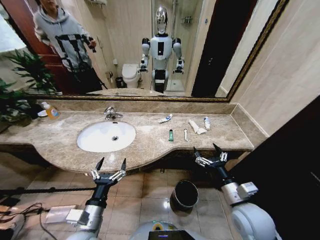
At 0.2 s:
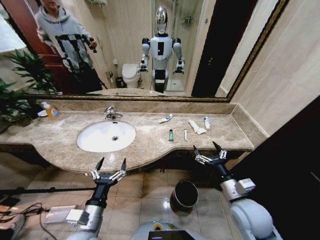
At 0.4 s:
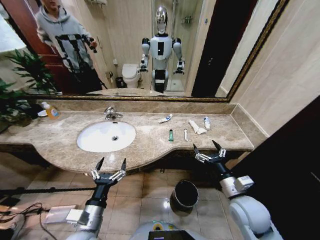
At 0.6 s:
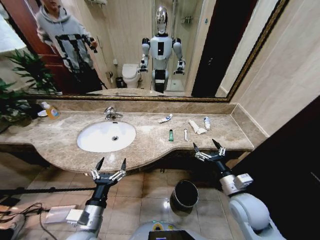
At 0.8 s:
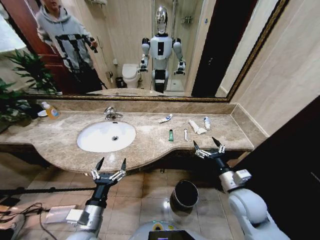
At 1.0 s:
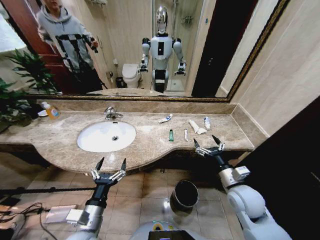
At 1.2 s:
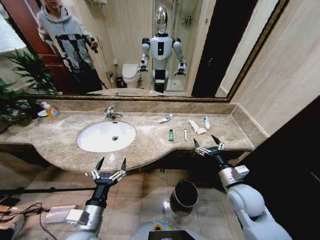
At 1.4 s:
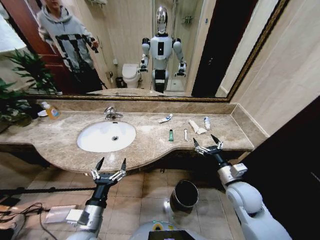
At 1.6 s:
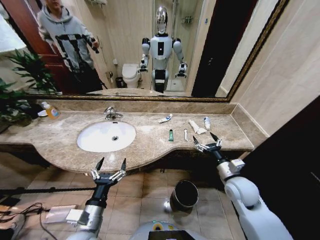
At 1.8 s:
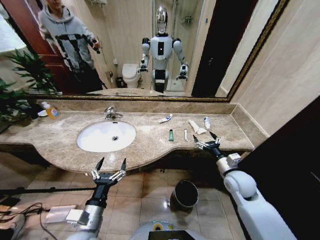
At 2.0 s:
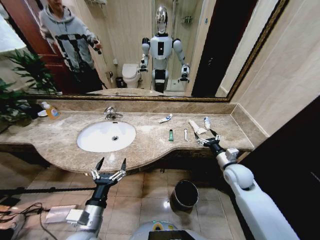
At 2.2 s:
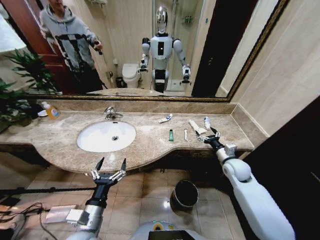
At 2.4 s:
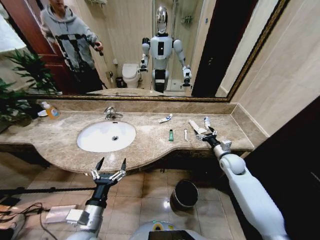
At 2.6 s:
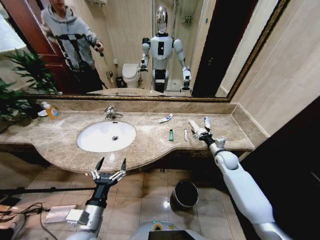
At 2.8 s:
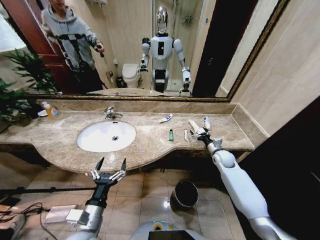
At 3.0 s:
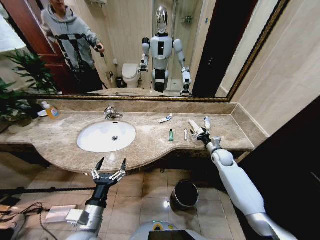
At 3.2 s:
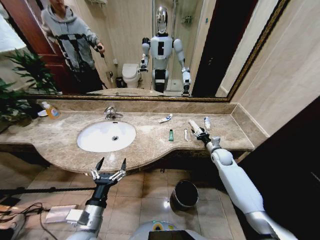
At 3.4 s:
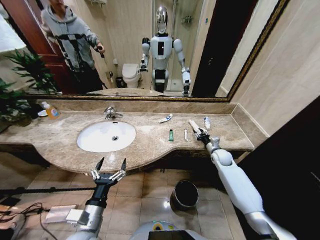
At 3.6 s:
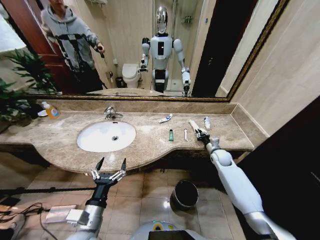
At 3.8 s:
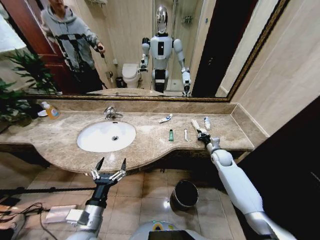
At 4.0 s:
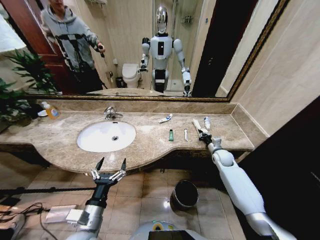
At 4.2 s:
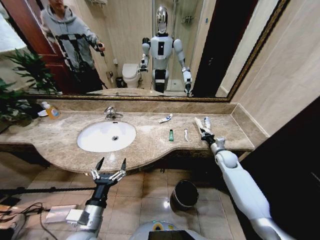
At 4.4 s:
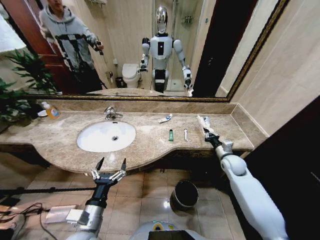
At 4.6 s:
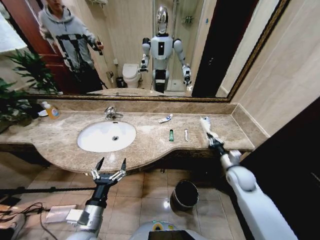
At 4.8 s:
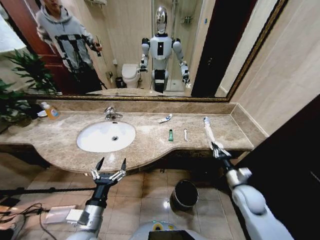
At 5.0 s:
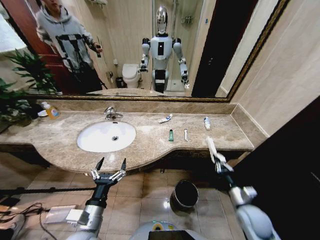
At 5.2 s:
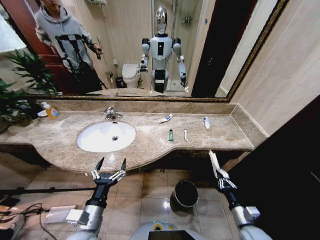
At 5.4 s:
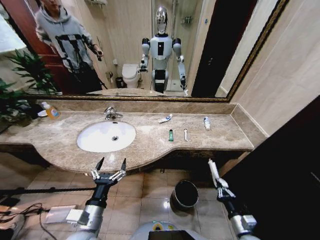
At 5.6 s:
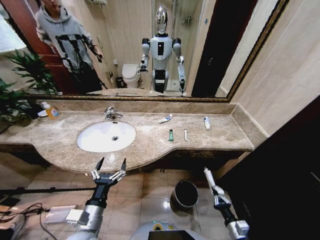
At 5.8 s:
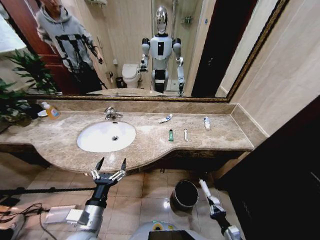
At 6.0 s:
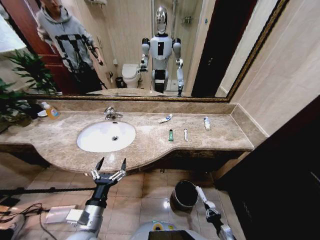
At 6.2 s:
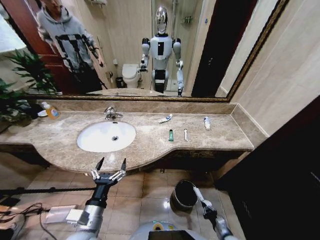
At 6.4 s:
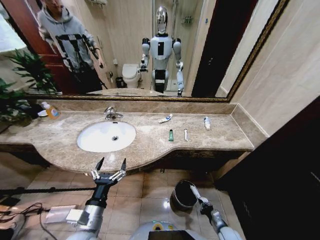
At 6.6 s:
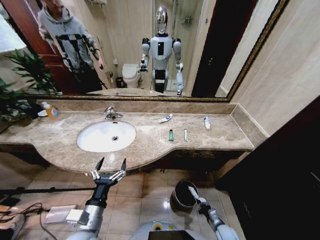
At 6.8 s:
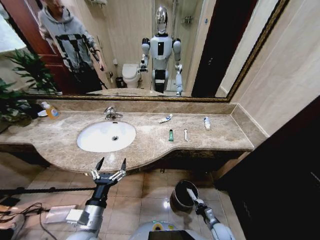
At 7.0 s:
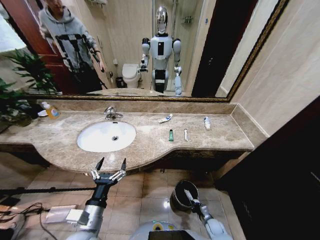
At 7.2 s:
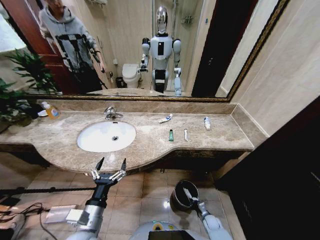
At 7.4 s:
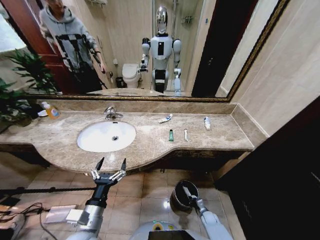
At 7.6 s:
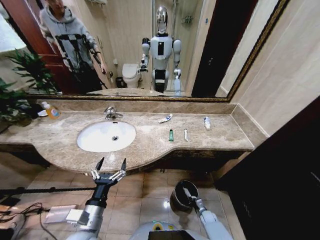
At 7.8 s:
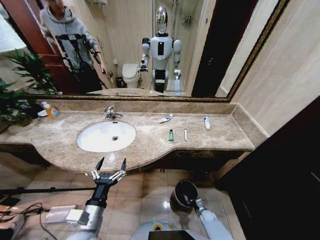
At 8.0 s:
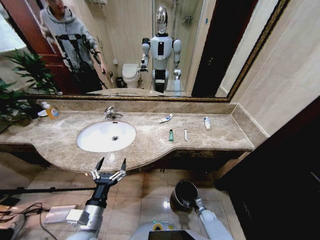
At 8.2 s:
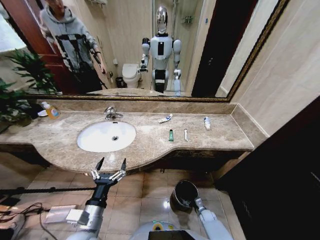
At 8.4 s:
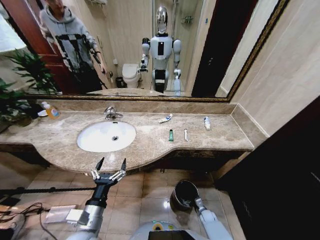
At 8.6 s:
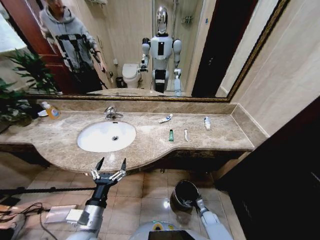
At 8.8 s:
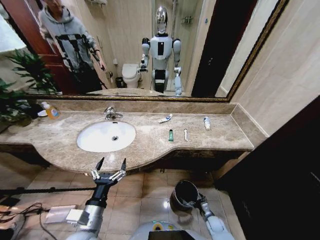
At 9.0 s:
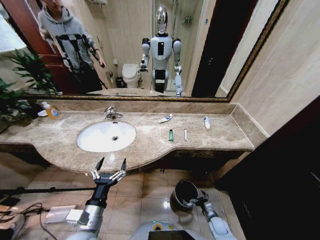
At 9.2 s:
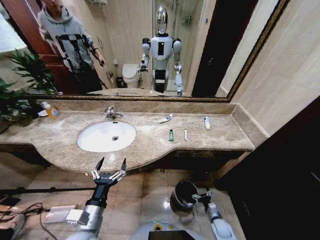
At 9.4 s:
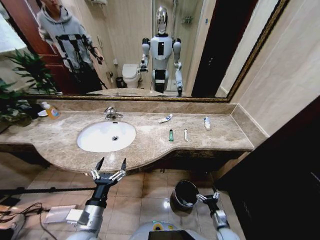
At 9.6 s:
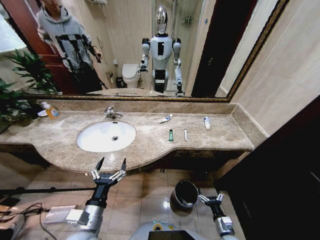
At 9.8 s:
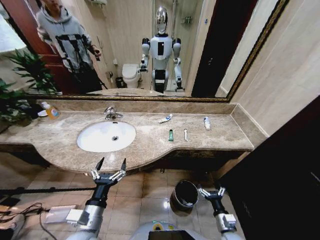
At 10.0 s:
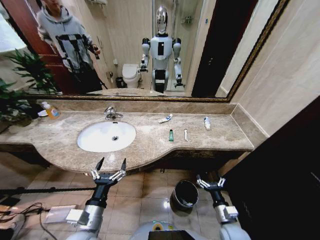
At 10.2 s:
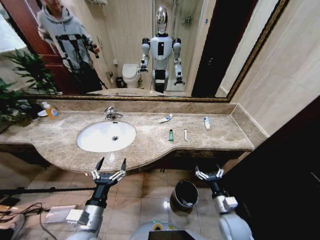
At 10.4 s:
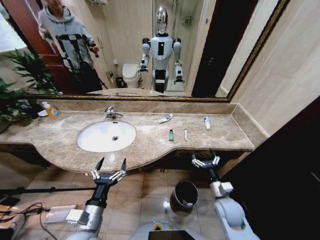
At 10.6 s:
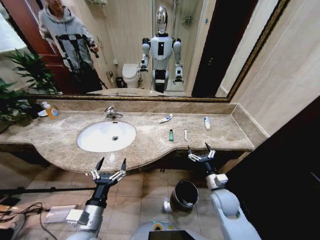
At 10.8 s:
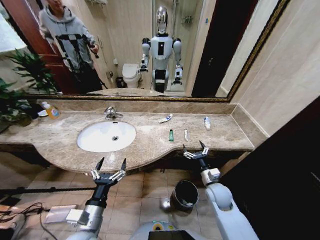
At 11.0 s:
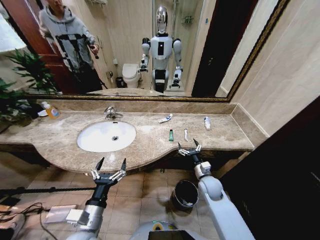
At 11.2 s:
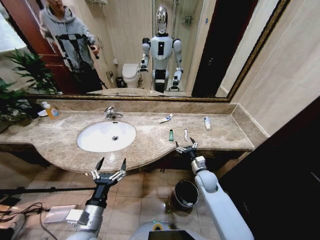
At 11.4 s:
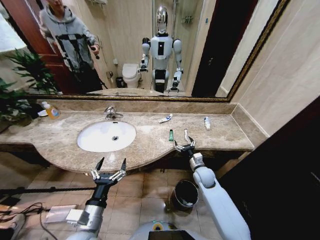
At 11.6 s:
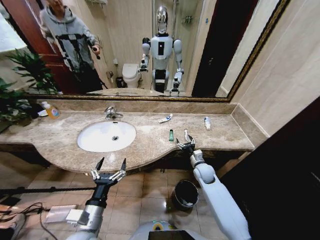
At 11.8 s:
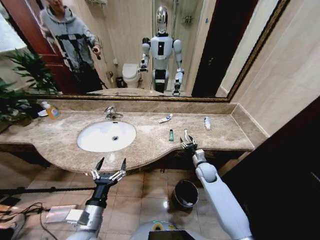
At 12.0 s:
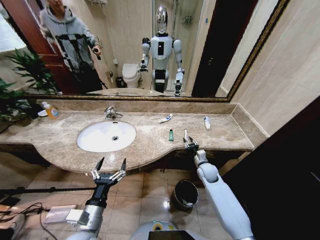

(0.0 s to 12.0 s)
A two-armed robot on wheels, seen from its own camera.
Task of the whole recording: Pick up the trash from the sink and place it in the trash bin.
1.6 s - 3.0 s: The right gripper travels forward by about 20 cm.
3.0 s - 4.4 s: The right gripper shifts some 5 cm backward, and closes up.
4.4 s - 6.0 s: The right gripper is displaced backward and downward by roughly 40 cm.
6.0 s - 7.6 s: The right gripper is displaced forward and downward by roughly 20 cm.
7.6 s - 9.0 s: The right gripper travels upward by some 5 cm, and opens up.
9.0 s - 10.4 s: The right gripper goes about 25 cm upward.
10.4 s - 12.0 s: The right gripper moves forward, approximately 15 cm, and closes its fingers.

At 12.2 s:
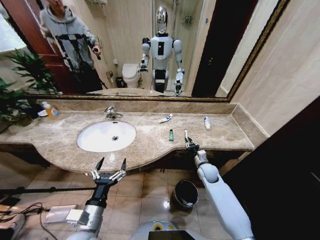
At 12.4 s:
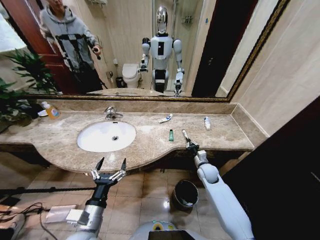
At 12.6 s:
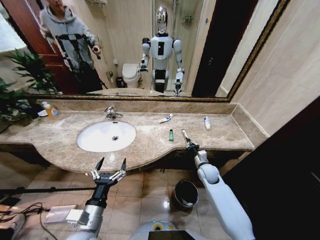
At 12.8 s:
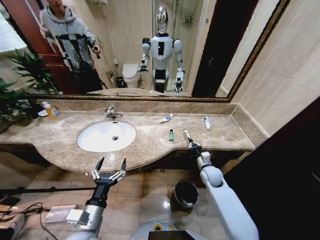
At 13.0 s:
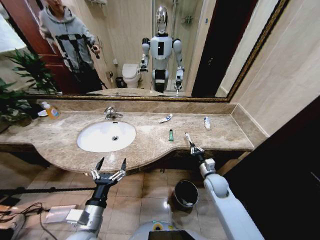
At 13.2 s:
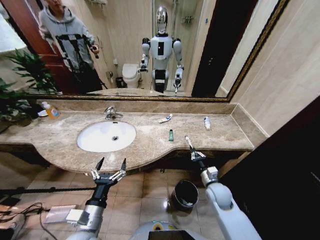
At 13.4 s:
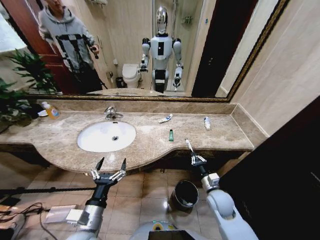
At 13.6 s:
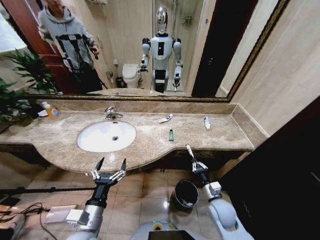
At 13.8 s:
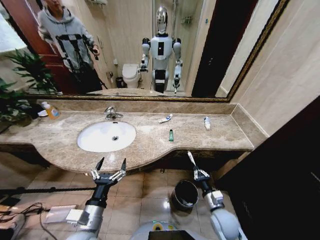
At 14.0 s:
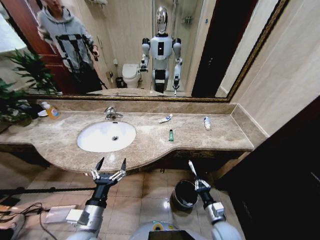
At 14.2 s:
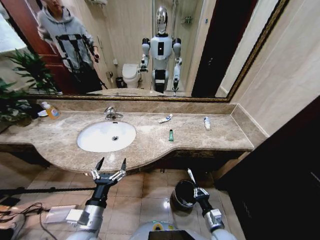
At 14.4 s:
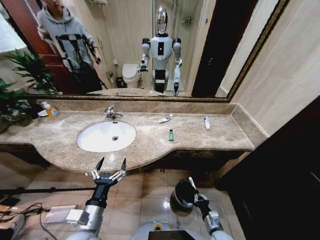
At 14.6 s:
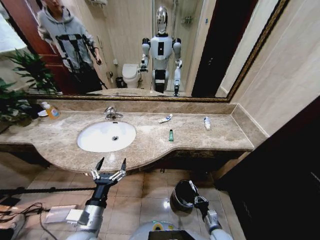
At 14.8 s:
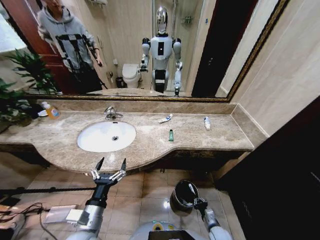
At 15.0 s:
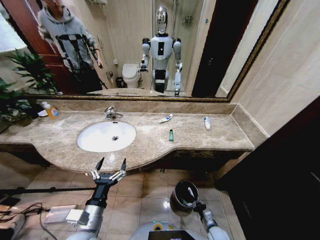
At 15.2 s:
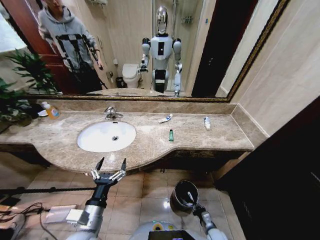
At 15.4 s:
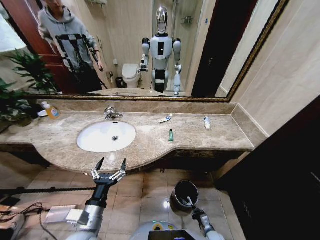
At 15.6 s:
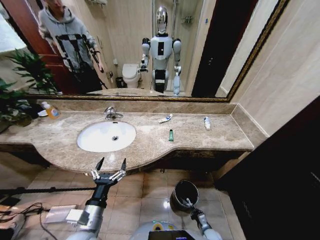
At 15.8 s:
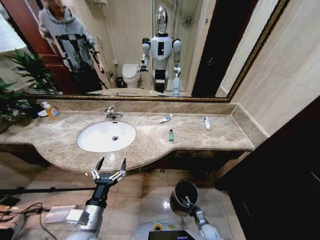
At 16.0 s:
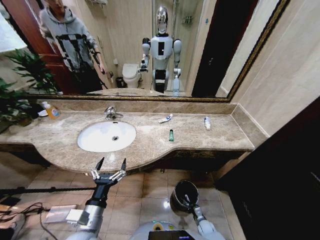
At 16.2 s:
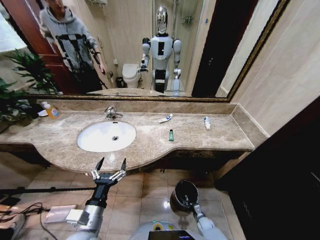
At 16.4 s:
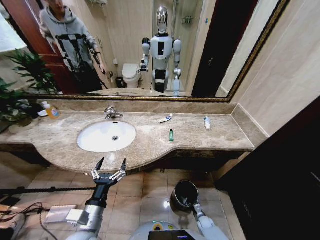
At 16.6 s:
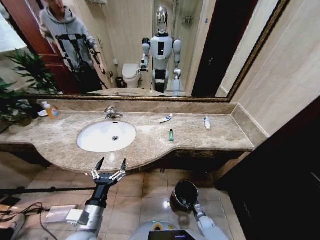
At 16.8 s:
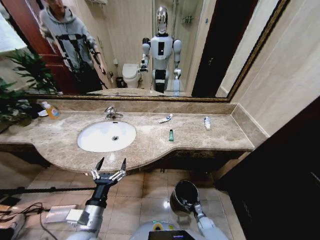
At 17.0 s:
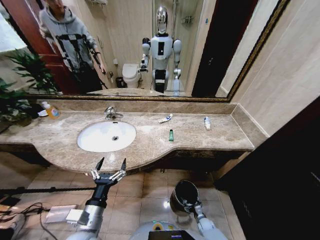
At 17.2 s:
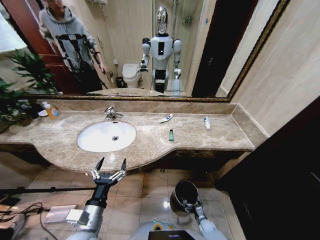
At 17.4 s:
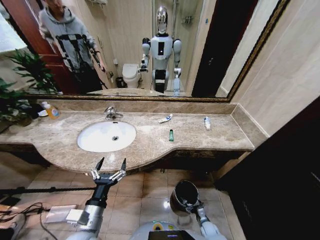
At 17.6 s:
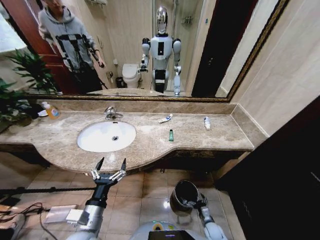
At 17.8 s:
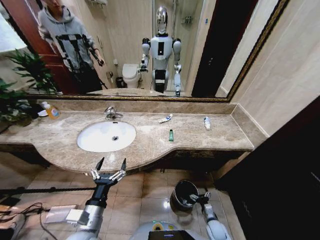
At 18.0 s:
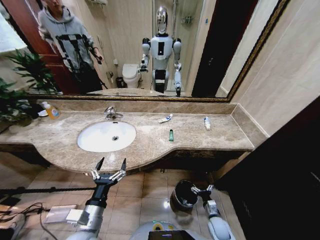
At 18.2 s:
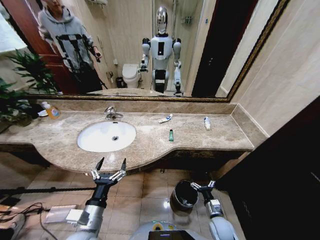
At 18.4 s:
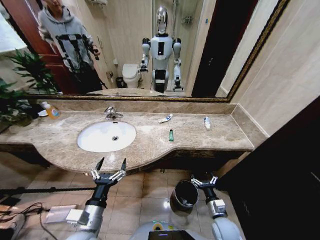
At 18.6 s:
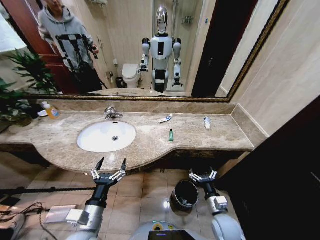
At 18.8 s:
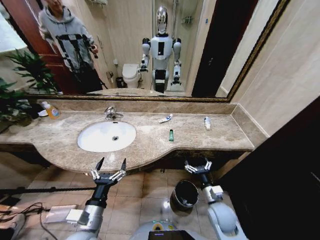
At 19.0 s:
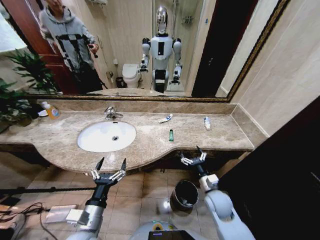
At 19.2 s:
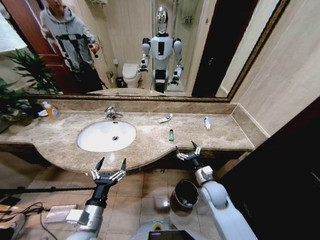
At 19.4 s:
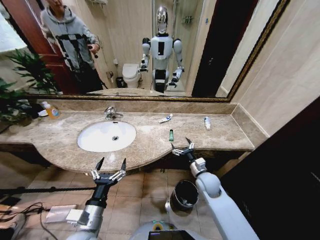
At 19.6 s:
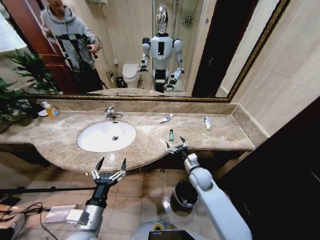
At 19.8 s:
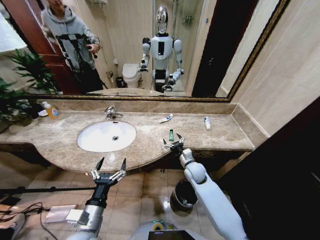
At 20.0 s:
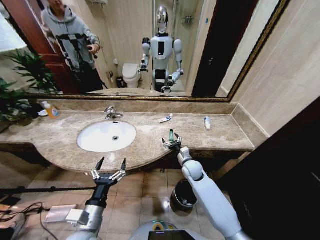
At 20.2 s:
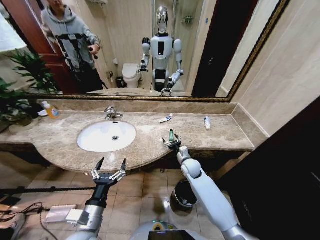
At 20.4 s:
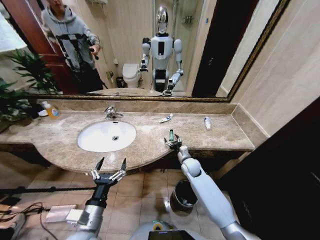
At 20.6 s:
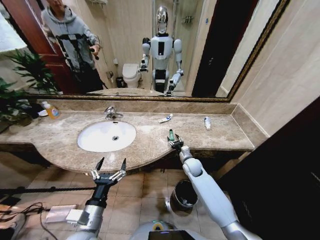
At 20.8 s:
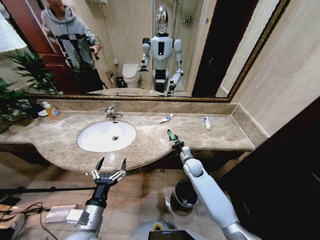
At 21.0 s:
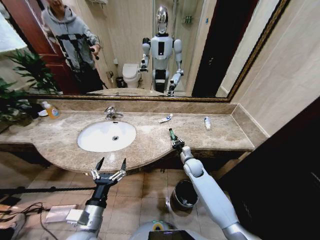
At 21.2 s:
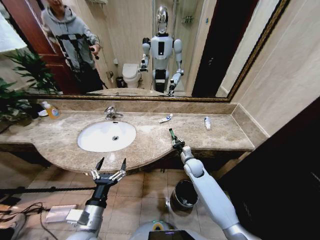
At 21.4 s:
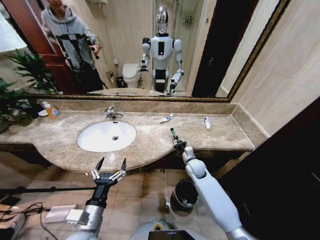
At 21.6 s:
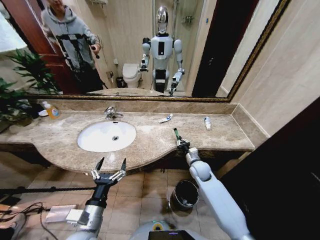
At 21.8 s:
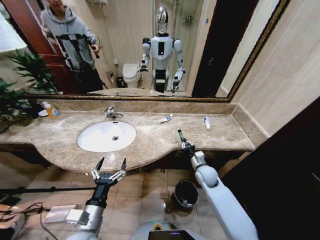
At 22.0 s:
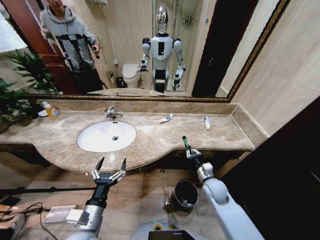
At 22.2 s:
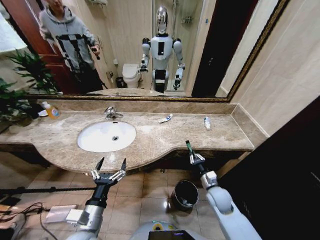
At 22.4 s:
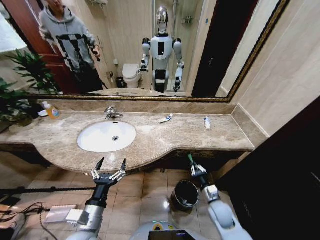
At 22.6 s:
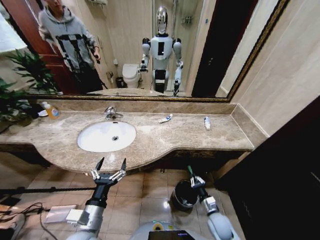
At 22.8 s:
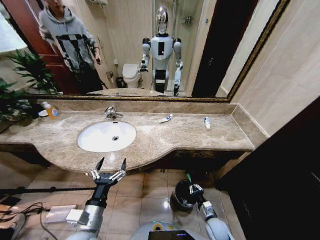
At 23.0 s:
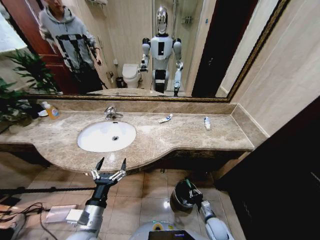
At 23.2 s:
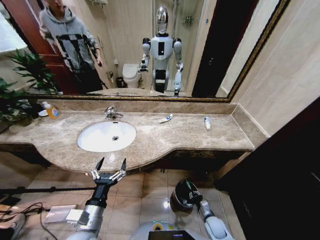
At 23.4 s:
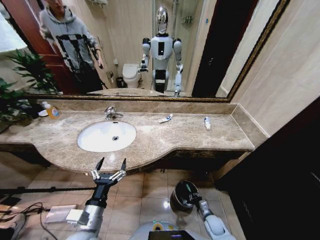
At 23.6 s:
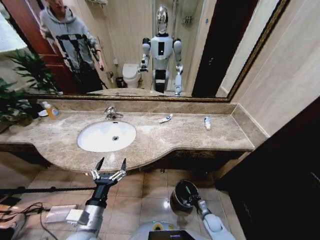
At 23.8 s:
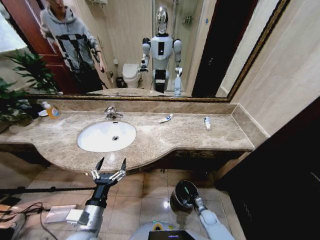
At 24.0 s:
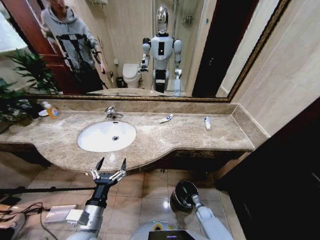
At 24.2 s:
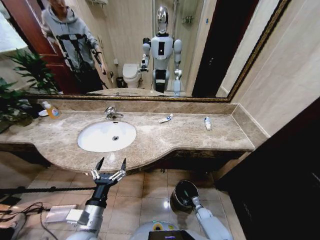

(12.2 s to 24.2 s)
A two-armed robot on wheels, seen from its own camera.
Task of the whole recording: Pick up the trash from the sink and place it in the trash bin.
12.2 s - 13.8 s: The right gripper shifts approximately 20 cm backward.
13.8 s - 15.2 s: The right gripper heads downward, covering roughly 20 cm.
15.2 s - 16.6 s: The right gripper travels downward and forward by about 10 cm, and opens its fingers.
16.6 s - 18.2 s: The right gripper goes approximately 20 cm upward, and opens.
18.2 s - 19.8 s: The right gripper travels forward, upward and to the left by roughly 25 cm.
19.8 s - 21.2 s: The right gripper changes place by roughly 5 cm, and closes.
21.2 s - 22.6 s: The right gripper is displaced backward and downward by approximately 25 cm.
22.6 s - 24.2 s: The right gripper travels downward by approximately 20 cm.
